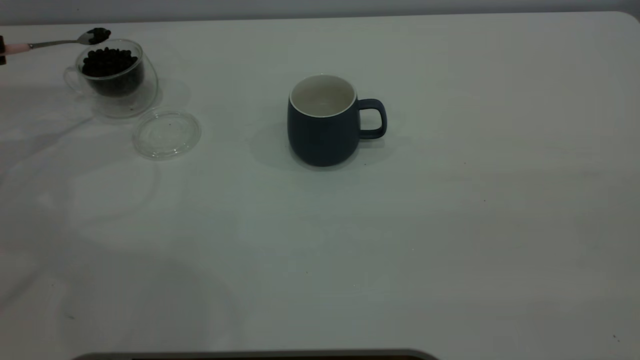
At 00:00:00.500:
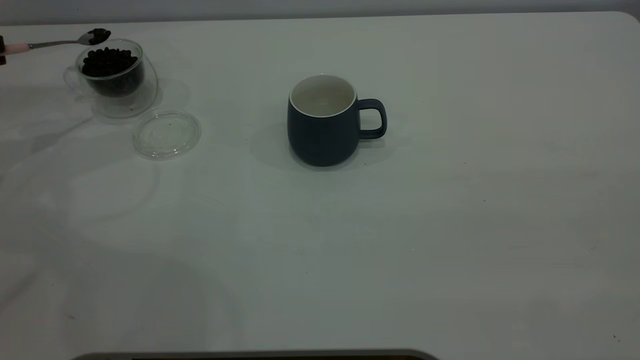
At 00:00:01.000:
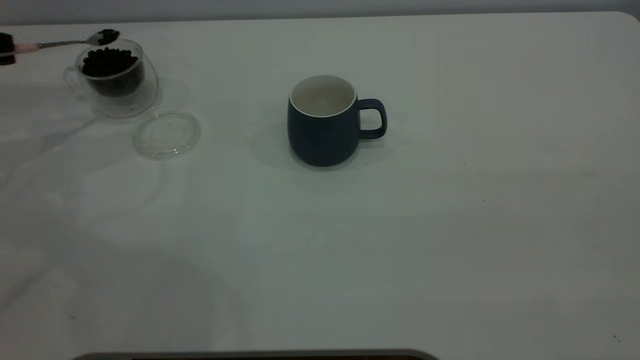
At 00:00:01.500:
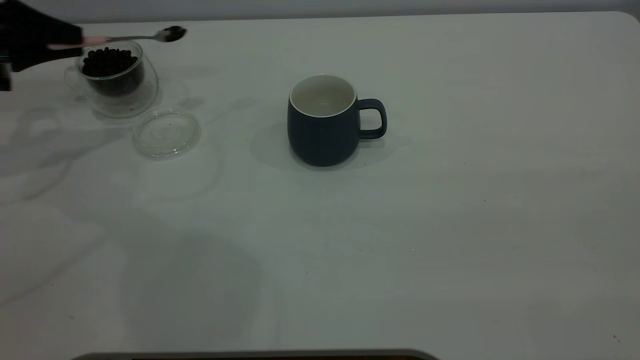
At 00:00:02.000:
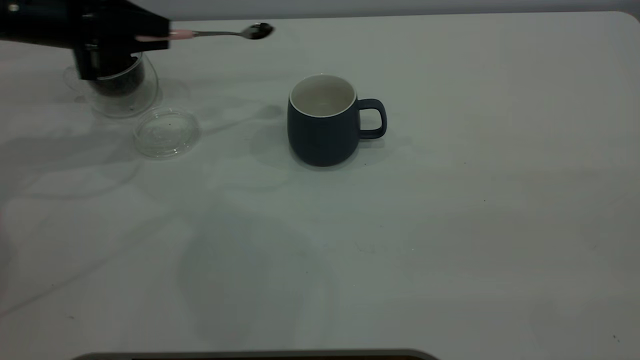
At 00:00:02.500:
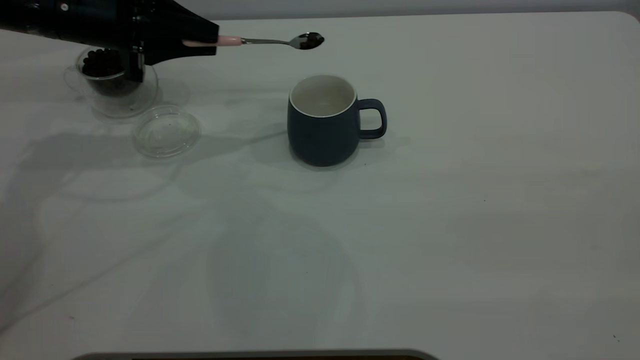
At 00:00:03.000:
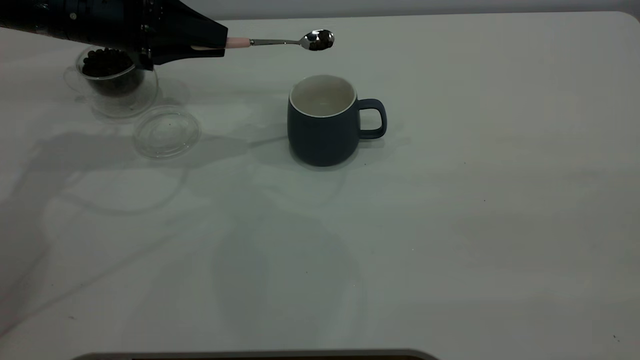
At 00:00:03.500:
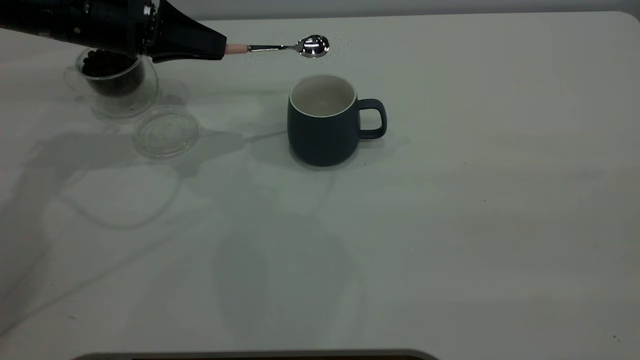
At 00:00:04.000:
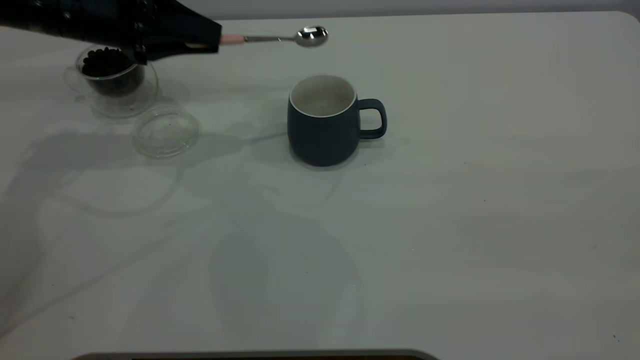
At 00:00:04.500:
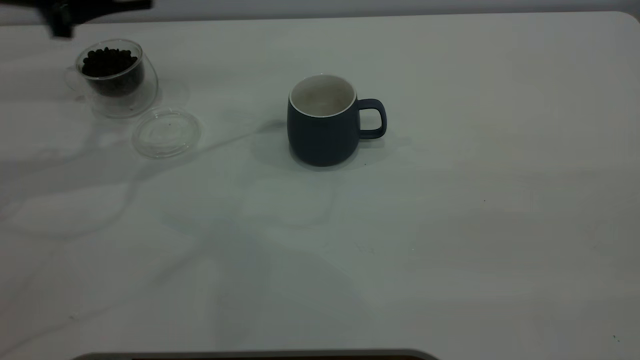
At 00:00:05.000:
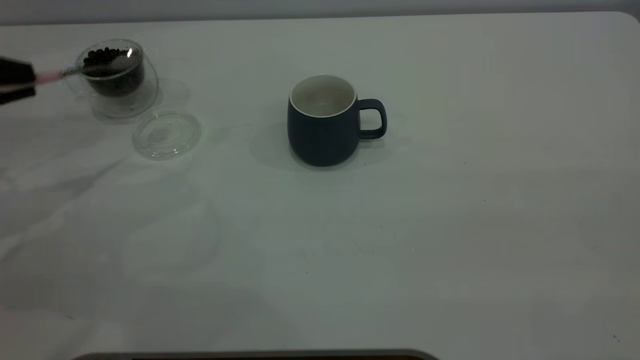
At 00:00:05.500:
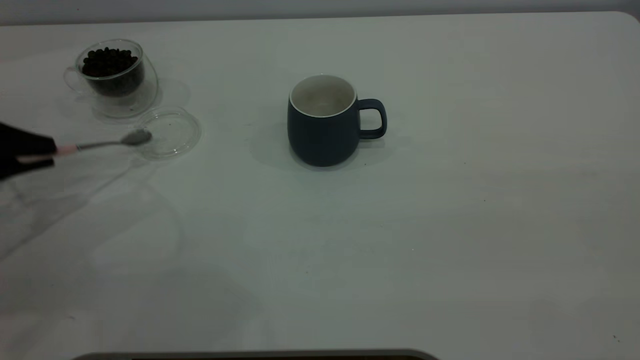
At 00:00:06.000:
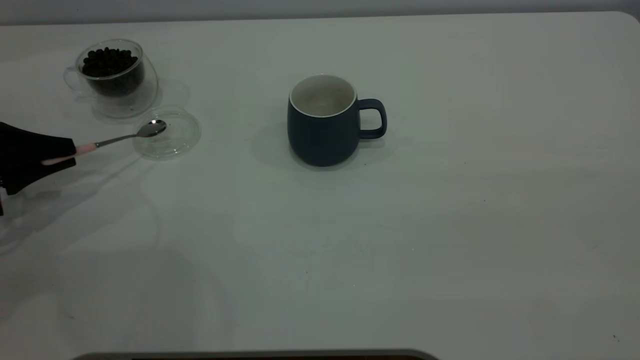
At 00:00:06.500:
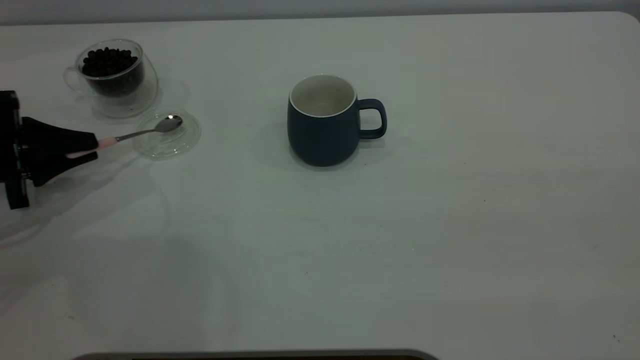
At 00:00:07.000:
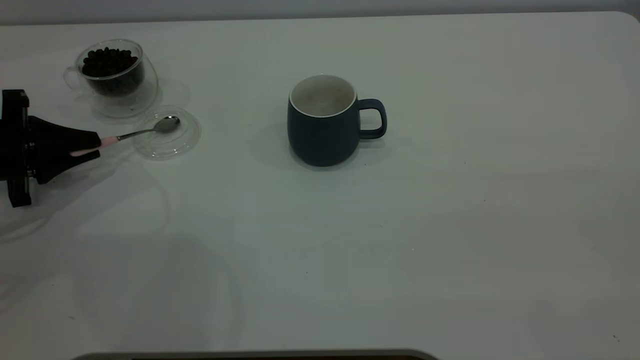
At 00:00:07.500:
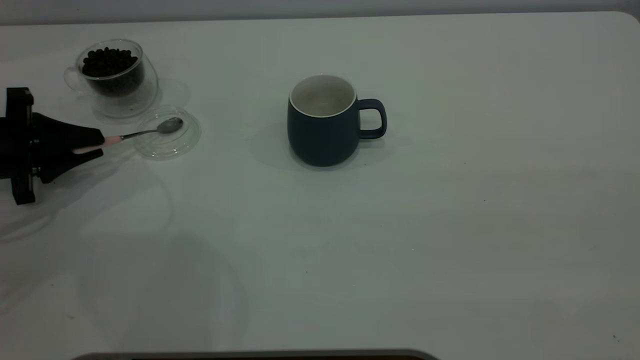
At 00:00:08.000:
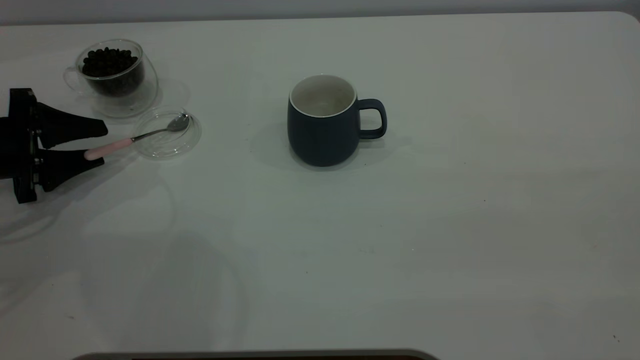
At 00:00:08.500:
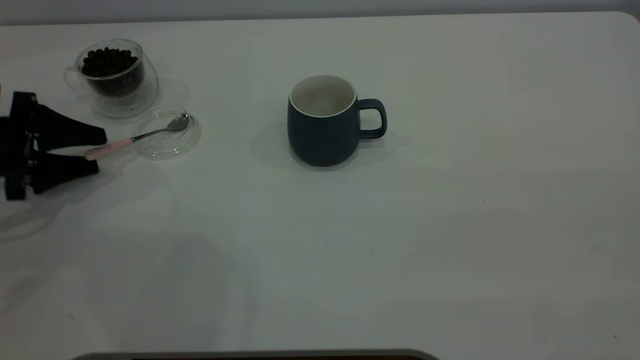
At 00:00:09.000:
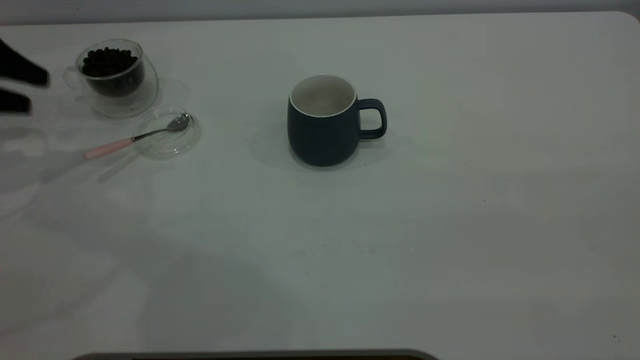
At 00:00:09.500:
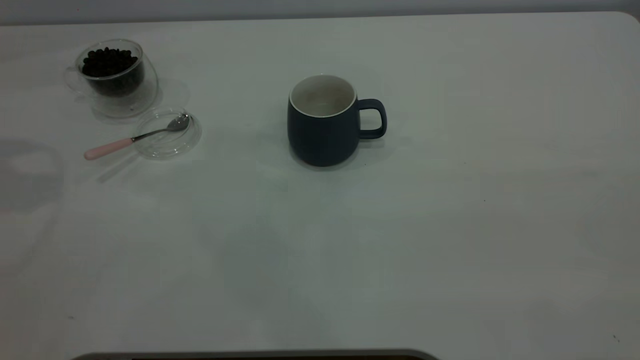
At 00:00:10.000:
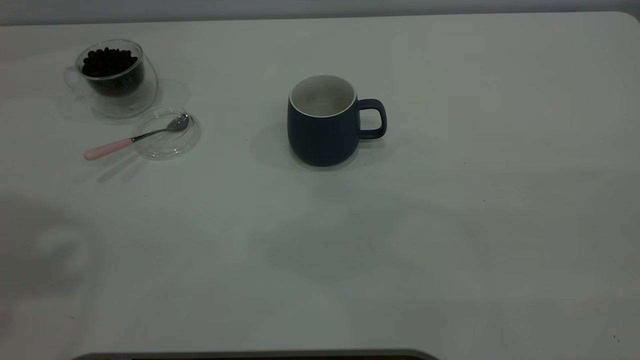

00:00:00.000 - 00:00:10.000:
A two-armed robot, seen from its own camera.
Task of the whole recording: the right gripper place the grey cup in the center of the table, the left gripper take the pink spoon from the cup lid and scoop out the coffee beans from the coffee cup and put them into the grey cup, the left gripper put the spoon back into the cup lid.
Step, 00:00:00.000 - 00:00:04.000: Scoop a spoonful of beans into the cup.
Step, 00:00:04.500 - 00:00:08.500: Place the spoon back in its original place.
00:00:00.000 - 00:00:02.000: The left gripper travels to the right by approximately 20 cm.
00:00:04.000 - 00:00:06.000: The left gripper is displaced to the left, backward and downward by approximately 20 cm.
00:00:06.000 - 00:00:08.000: The left gripper opens.
00:00:08.000 - 00:00:10.000: The left gripper heads upward, covering about 40 cm.
